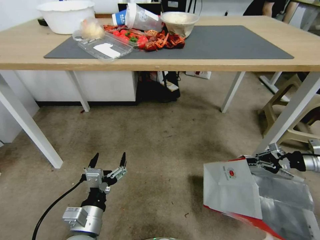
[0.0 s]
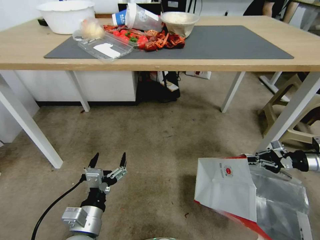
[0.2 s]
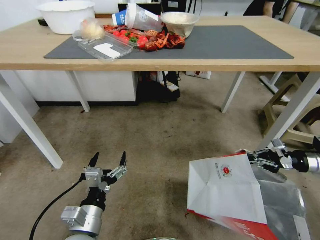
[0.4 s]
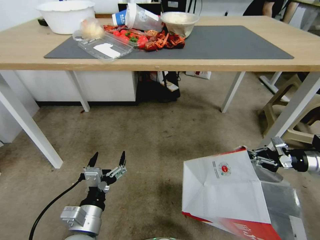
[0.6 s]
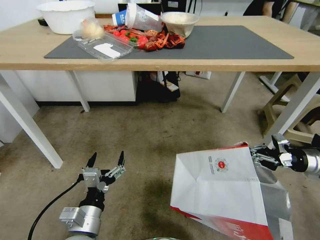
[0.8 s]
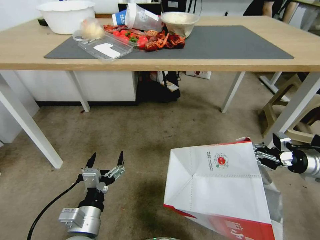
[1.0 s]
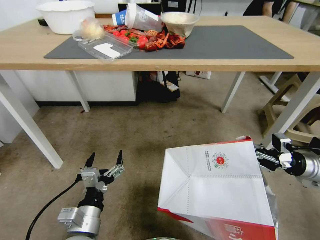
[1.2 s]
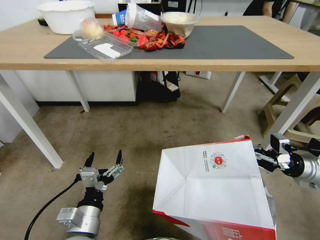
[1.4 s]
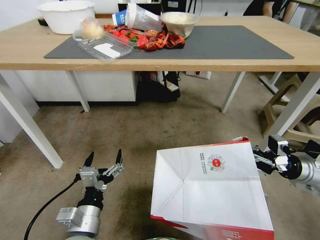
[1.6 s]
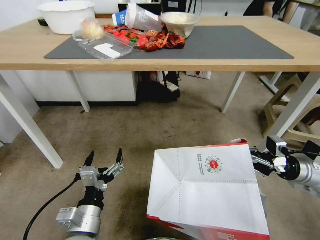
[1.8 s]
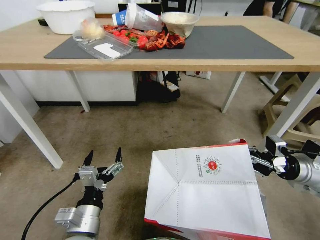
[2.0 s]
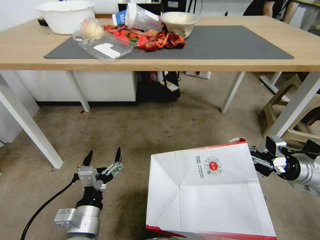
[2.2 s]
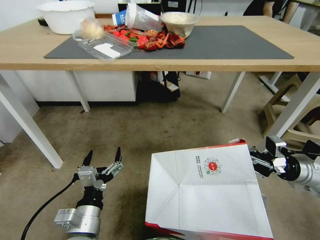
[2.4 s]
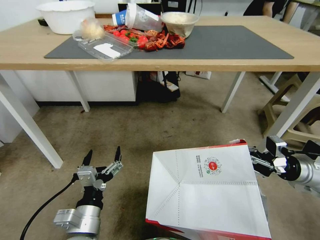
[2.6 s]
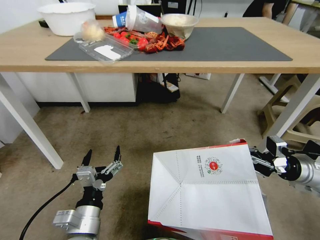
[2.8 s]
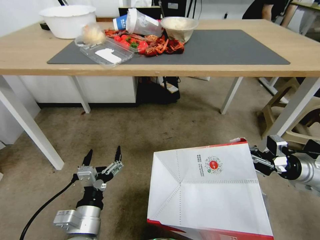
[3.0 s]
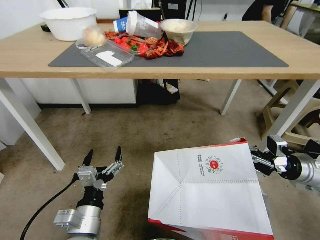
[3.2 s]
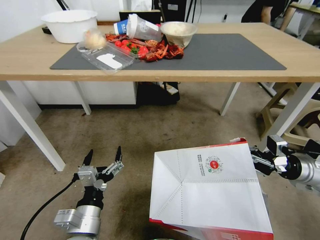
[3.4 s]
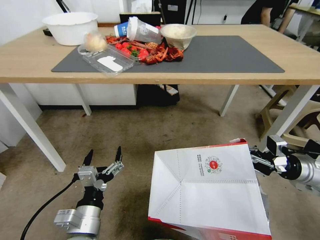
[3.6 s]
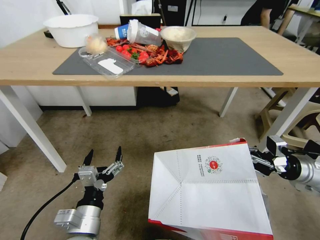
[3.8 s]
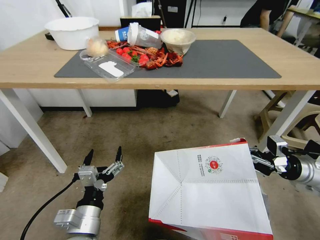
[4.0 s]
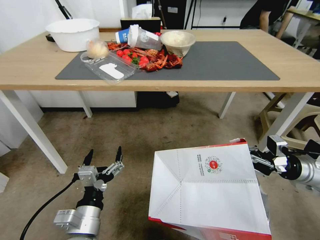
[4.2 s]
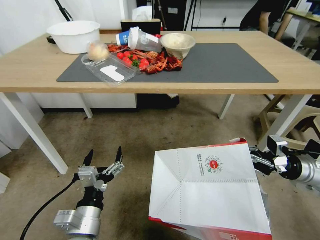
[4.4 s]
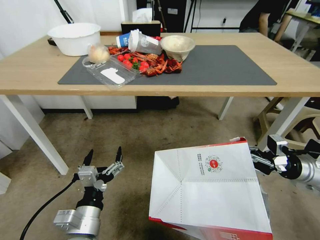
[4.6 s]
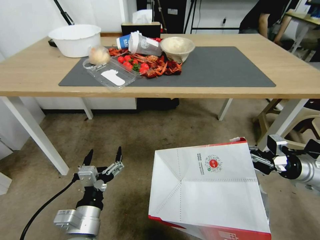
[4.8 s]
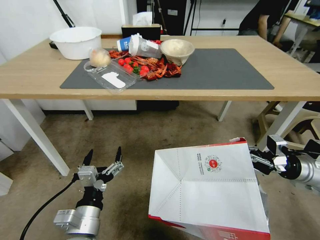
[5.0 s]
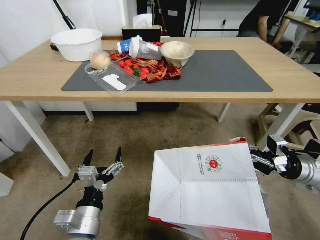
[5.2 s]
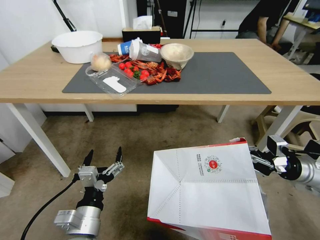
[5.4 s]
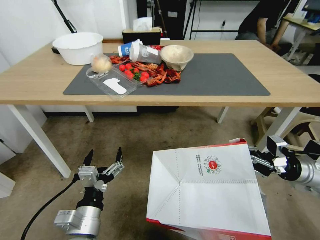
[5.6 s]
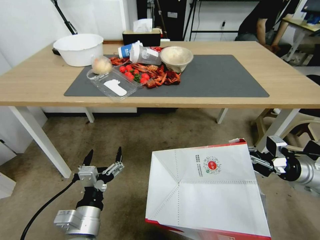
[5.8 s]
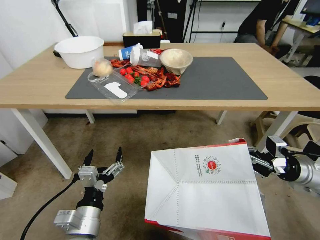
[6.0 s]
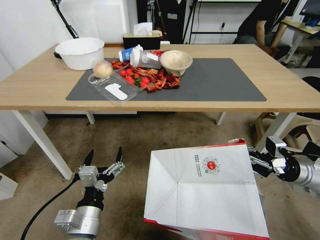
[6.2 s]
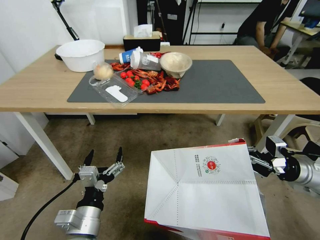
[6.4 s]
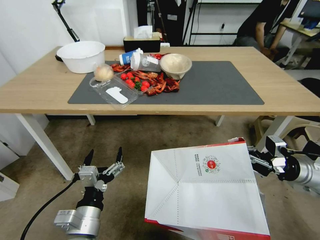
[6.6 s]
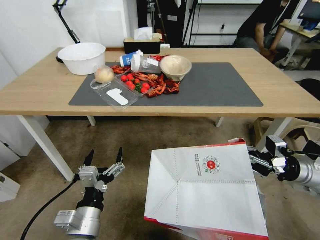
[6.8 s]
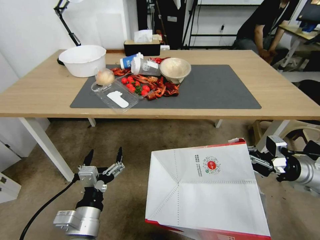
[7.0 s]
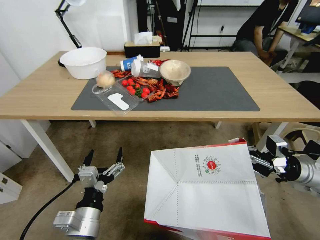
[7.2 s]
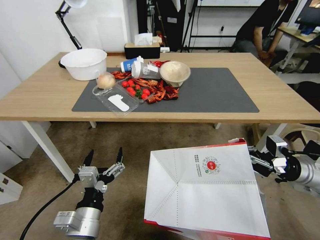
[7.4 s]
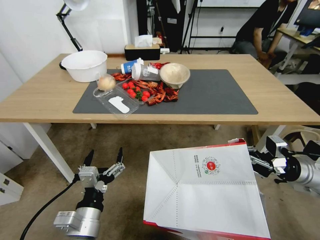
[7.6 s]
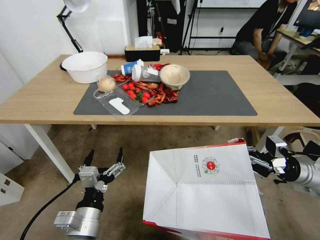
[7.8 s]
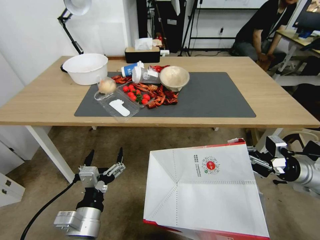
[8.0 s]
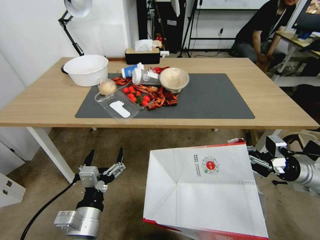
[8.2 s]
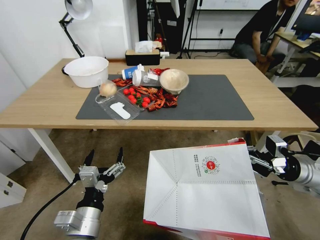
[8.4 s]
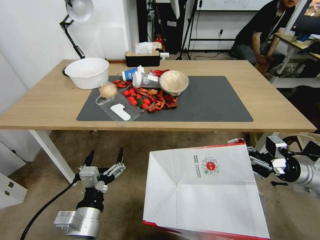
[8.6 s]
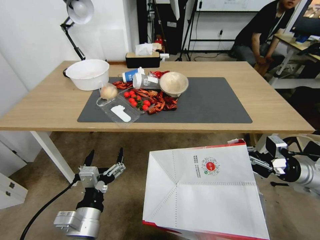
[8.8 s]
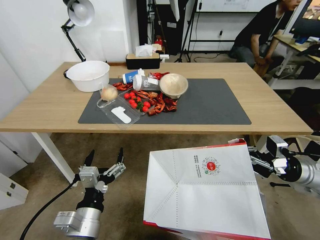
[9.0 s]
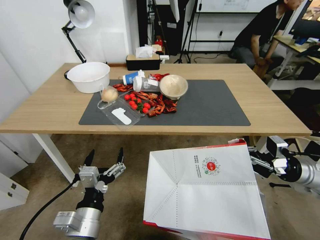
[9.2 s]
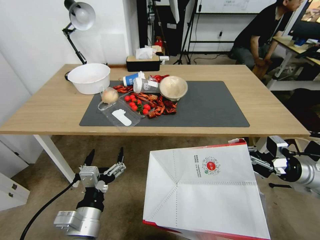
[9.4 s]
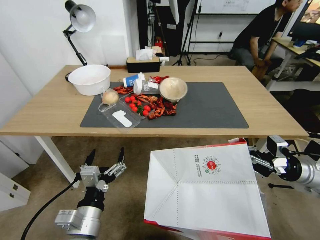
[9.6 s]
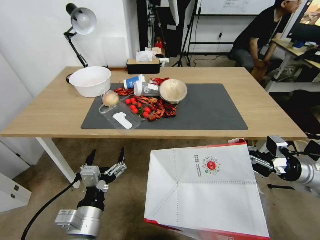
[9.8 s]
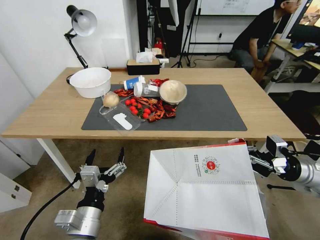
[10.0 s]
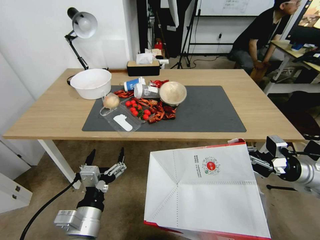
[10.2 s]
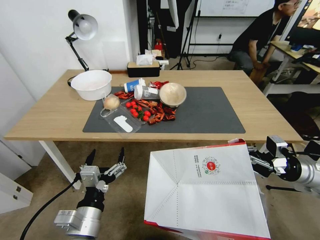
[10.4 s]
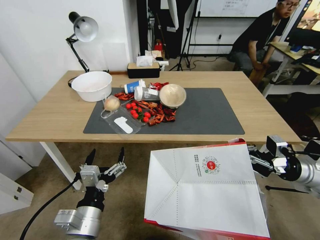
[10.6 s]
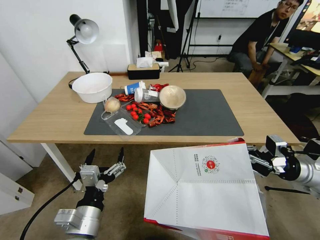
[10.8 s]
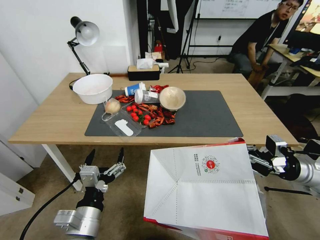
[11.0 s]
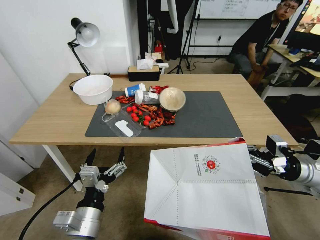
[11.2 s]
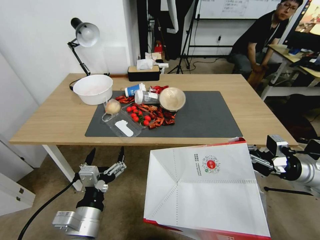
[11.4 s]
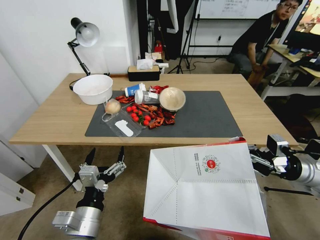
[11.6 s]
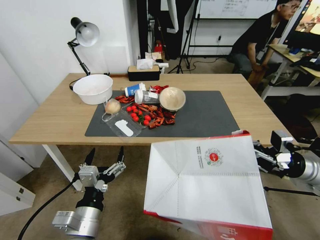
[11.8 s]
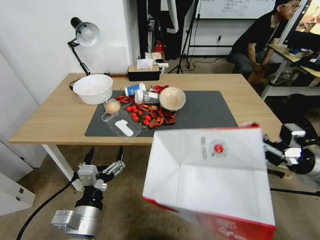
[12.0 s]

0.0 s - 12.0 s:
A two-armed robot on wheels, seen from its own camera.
Task of the whole recording: Pick up the food delivery bag from the floor and place it on the table.
0.0 s - 1.6 s: The right gripper heads to the left and backward, covering roughly 10 cm.

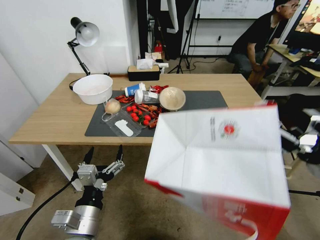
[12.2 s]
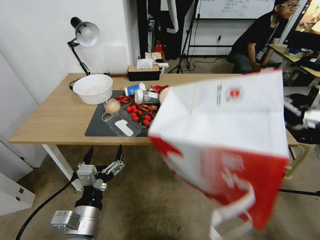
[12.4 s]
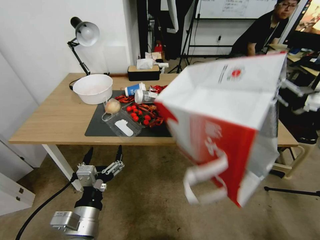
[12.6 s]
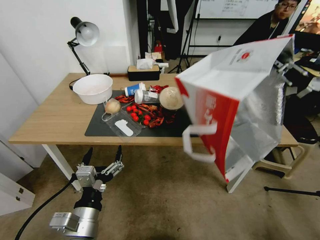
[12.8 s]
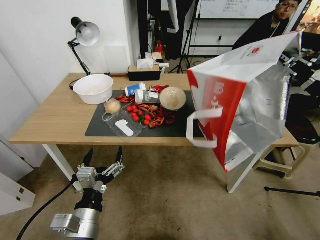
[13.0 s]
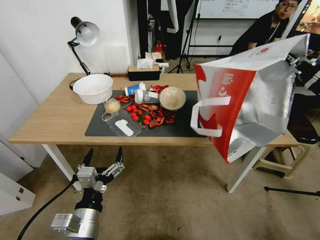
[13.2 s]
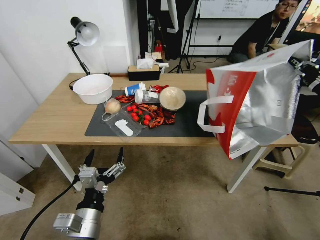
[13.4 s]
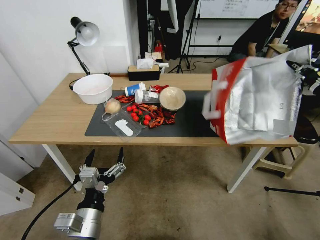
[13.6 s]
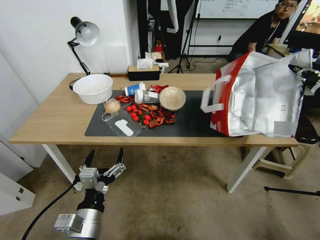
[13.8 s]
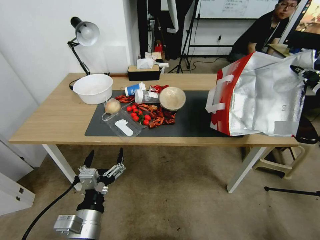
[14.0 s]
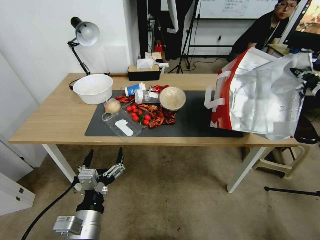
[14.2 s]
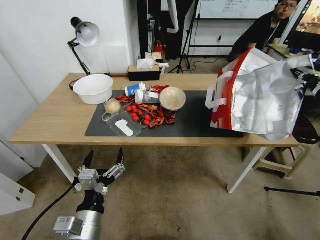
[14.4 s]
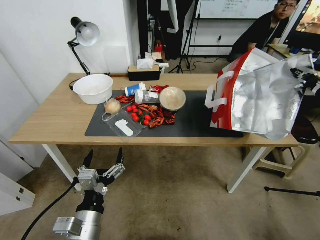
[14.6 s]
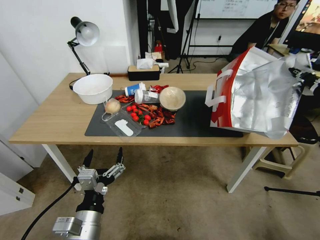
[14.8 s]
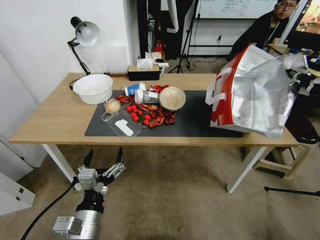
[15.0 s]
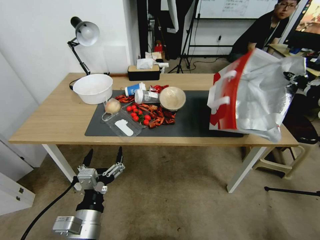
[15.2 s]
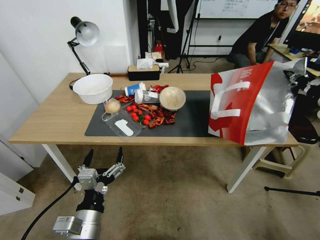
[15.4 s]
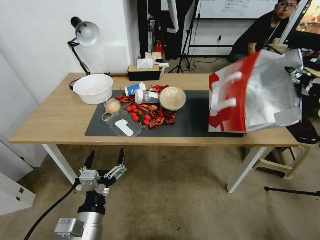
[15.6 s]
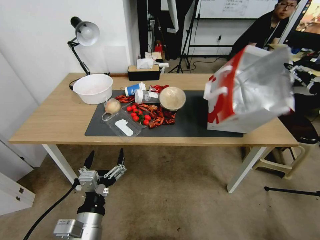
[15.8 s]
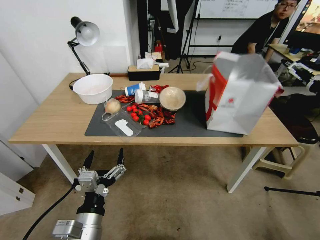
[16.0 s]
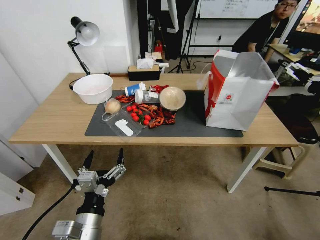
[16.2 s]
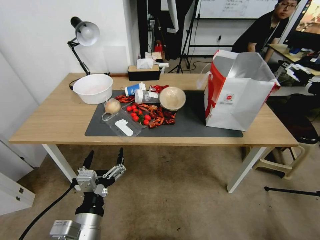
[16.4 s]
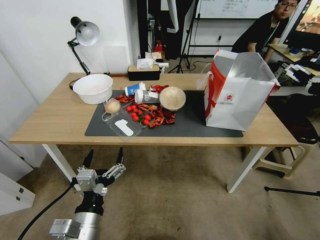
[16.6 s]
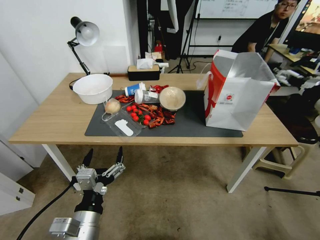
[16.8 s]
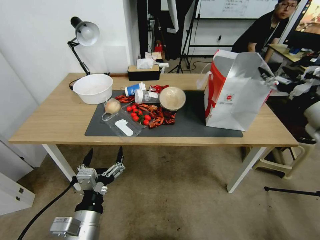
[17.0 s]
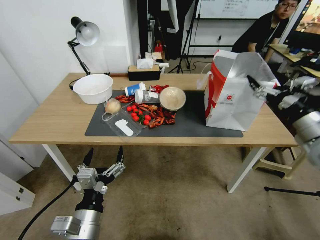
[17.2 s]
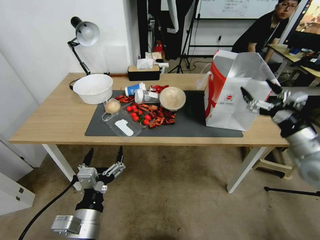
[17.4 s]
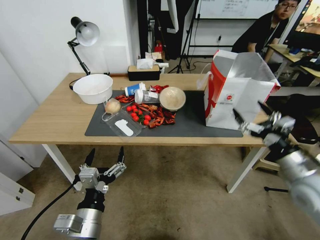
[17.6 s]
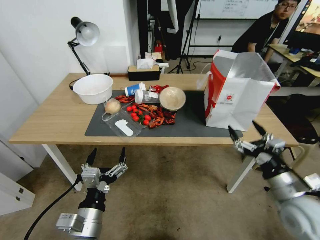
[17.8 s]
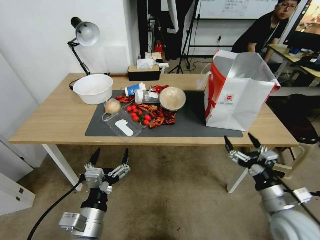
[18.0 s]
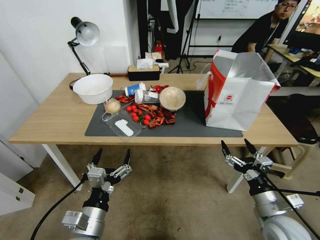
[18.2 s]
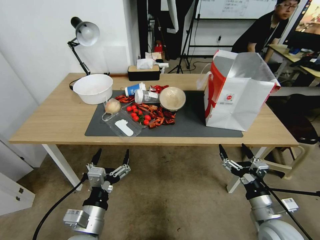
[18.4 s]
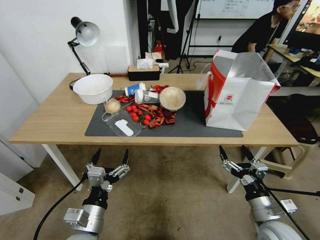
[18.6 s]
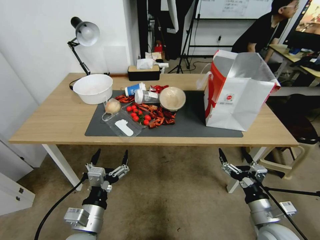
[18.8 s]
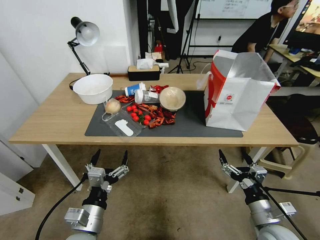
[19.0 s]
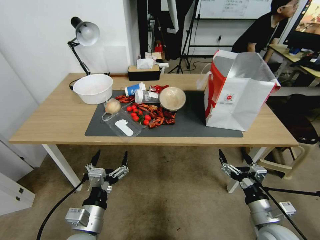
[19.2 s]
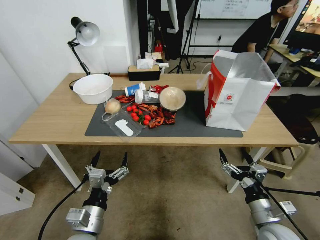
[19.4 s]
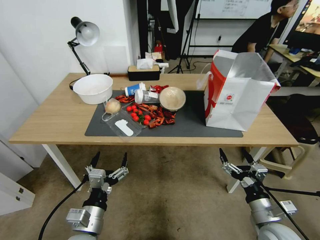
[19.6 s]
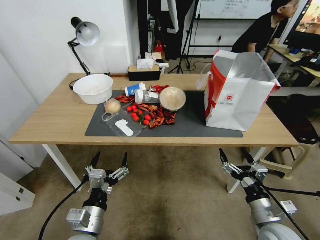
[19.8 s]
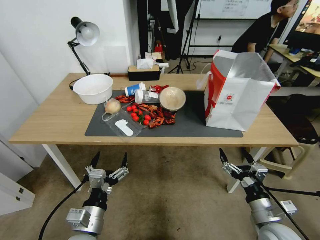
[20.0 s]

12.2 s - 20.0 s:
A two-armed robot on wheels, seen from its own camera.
Task of the whole recording: Pick up the food delivery bag from the floor and place it on the table.
12.2 s - 13.8 s: The right gripper shifts approximately 10 cm upward.
13.8 s - 15.4 s: The grippers make only small movements.
15.4 s - 16.8 s: The right gripper opens.
16.8 s - 18.4 s: The right gripper travels downward, backward and to the left by about 35 cm.
18.4 s - 20.0 s: The grippers move only a little.

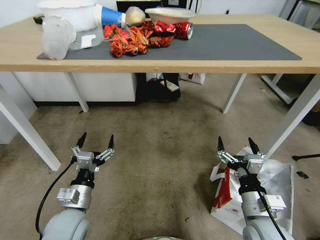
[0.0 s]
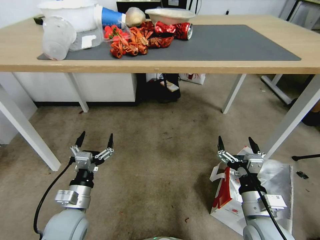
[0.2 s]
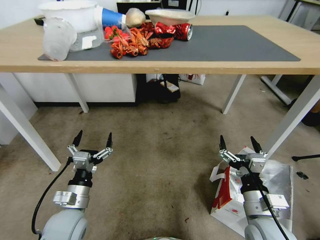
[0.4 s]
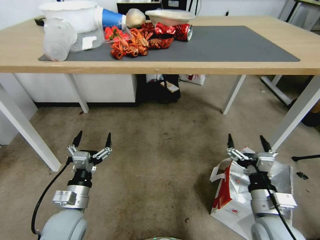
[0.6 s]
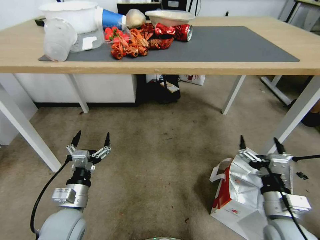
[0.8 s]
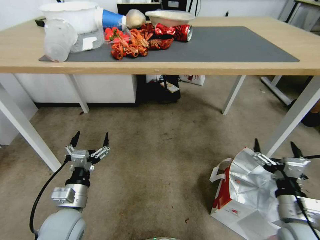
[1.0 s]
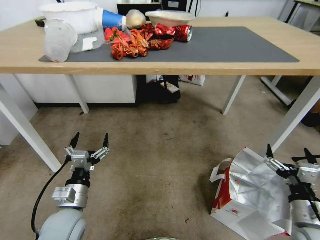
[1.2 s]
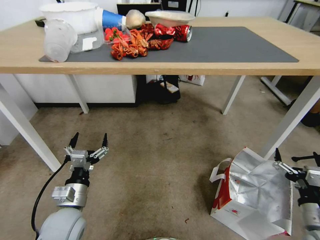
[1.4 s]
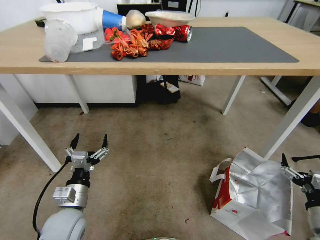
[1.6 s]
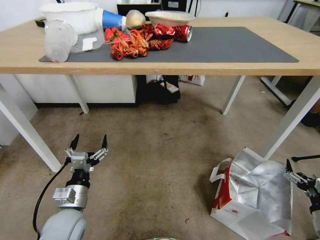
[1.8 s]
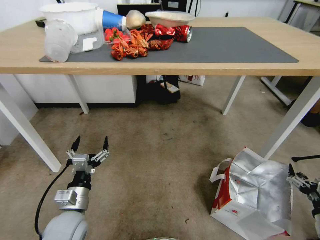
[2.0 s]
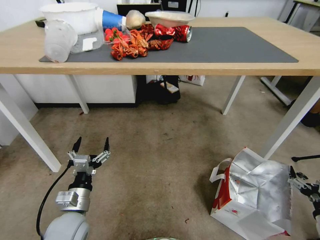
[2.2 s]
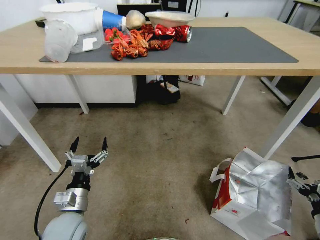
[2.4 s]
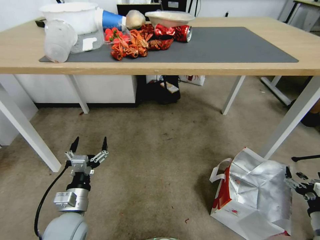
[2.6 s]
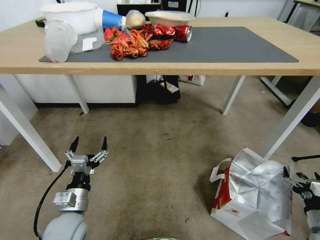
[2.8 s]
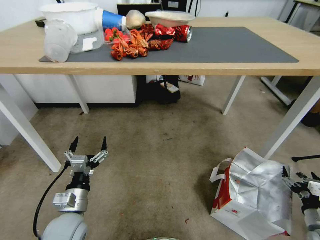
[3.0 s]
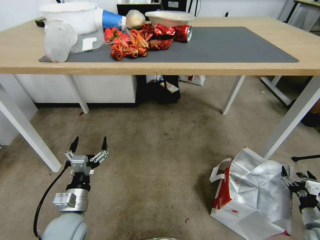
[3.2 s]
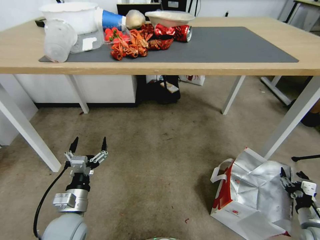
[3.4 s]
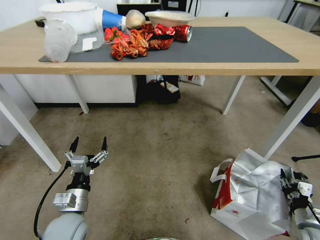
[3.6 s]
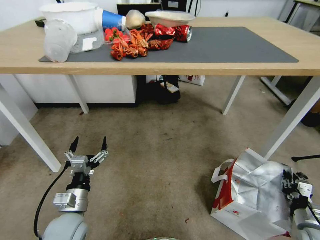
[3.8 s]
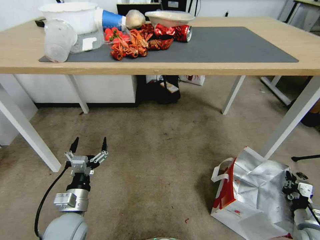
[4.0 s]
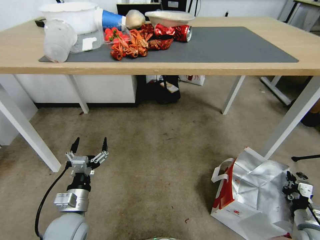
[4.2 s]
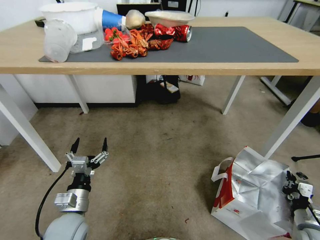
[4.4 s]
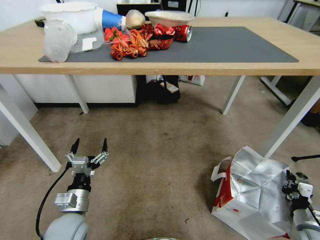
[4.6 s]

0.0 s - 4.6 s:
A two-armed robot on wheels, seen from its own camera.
Task of the whole recording: Pick up the food delivery bag from the floor and place it on the table.
0.0 s - 1.6 s: The right gripper goes some 20 cm to the right.
1.6 s - 3.0 s: The right gripper goes some 10 cm downward and to the right.
3.0 s - 4.6 s: The right gripper closes its fingers.
